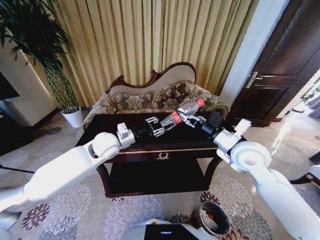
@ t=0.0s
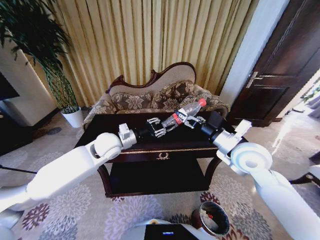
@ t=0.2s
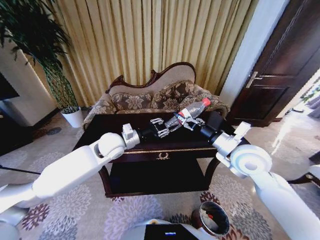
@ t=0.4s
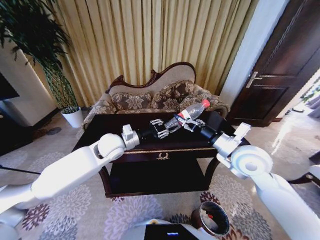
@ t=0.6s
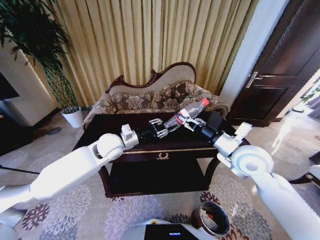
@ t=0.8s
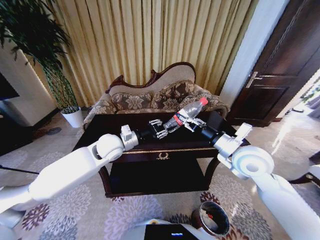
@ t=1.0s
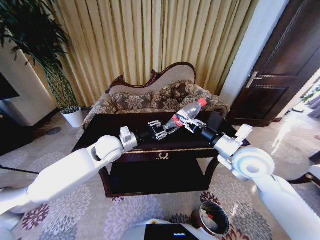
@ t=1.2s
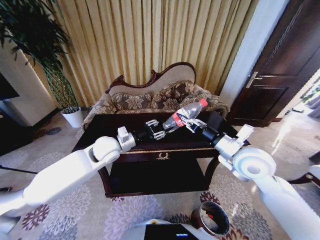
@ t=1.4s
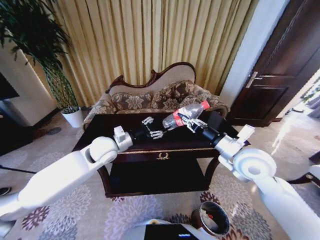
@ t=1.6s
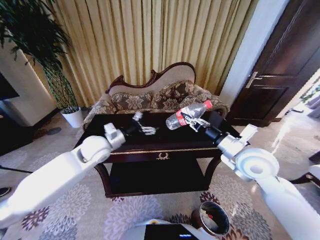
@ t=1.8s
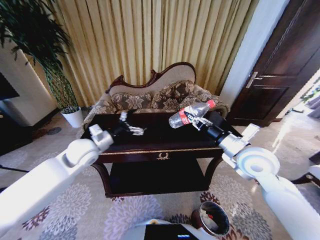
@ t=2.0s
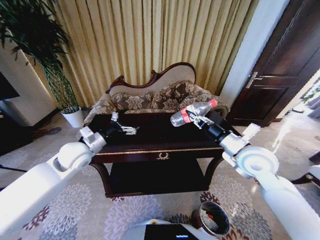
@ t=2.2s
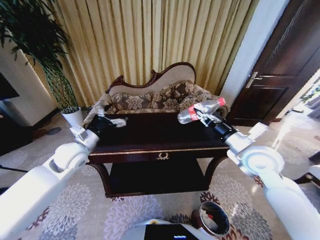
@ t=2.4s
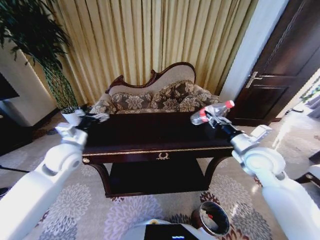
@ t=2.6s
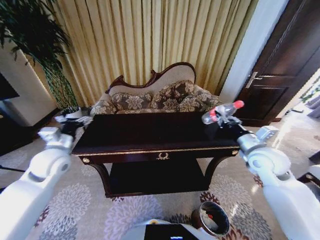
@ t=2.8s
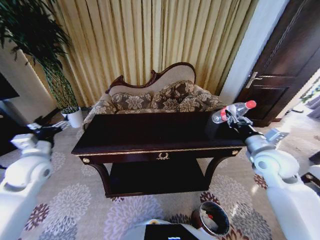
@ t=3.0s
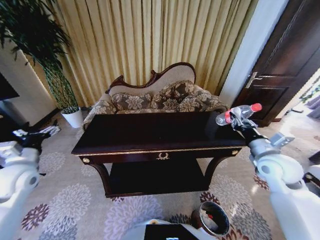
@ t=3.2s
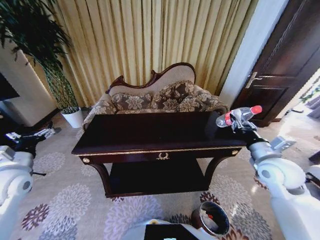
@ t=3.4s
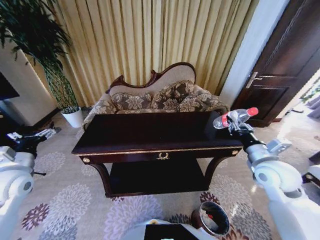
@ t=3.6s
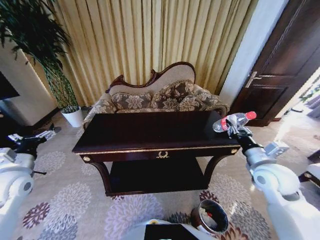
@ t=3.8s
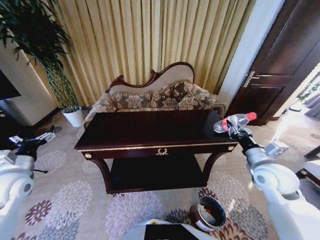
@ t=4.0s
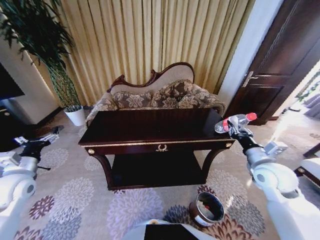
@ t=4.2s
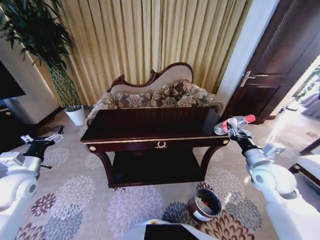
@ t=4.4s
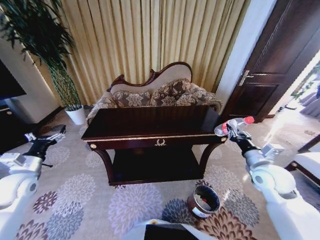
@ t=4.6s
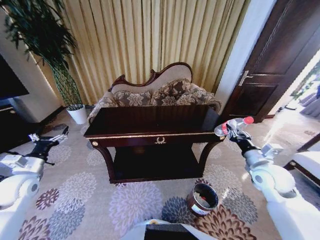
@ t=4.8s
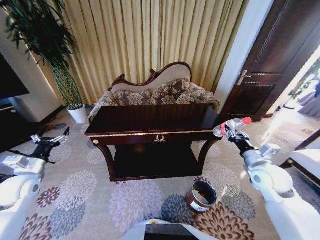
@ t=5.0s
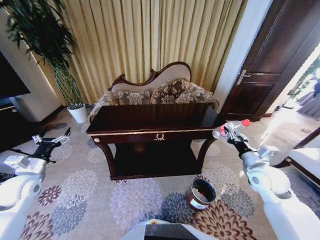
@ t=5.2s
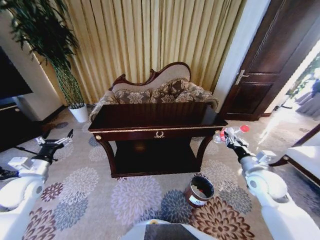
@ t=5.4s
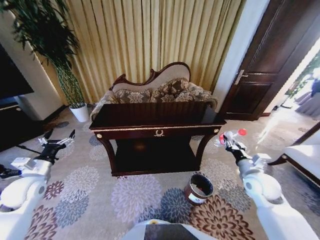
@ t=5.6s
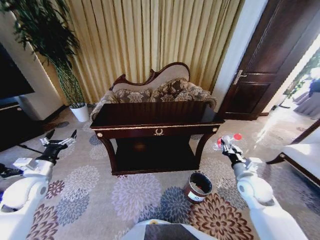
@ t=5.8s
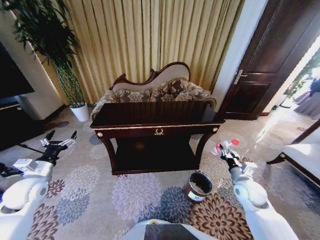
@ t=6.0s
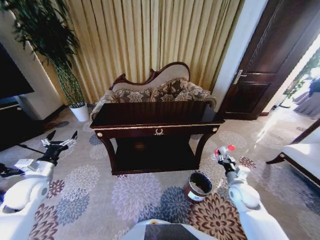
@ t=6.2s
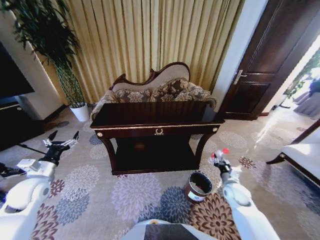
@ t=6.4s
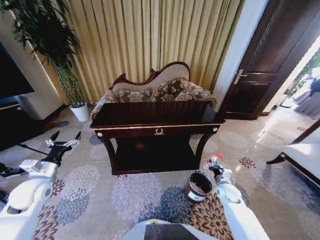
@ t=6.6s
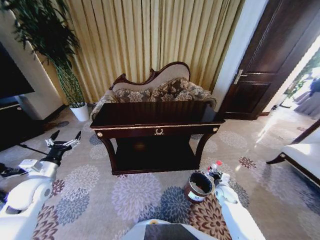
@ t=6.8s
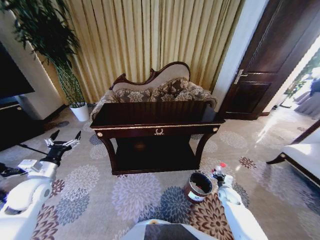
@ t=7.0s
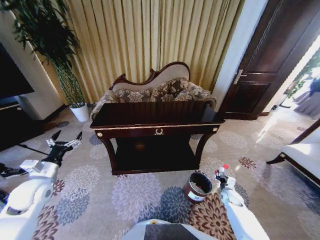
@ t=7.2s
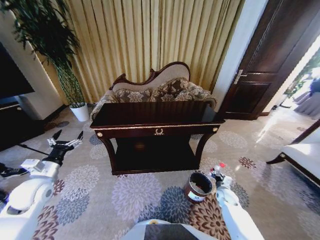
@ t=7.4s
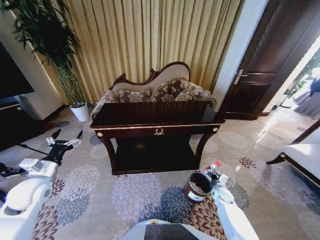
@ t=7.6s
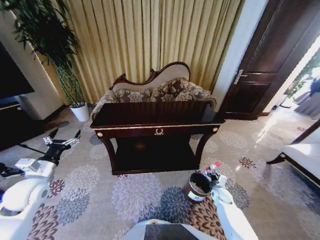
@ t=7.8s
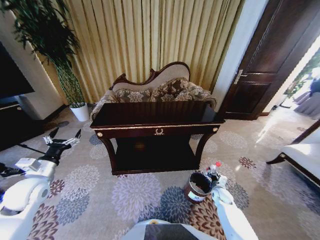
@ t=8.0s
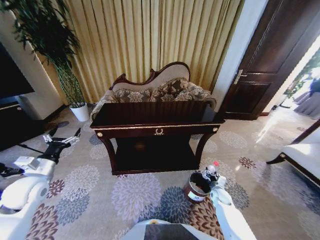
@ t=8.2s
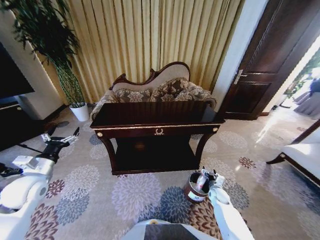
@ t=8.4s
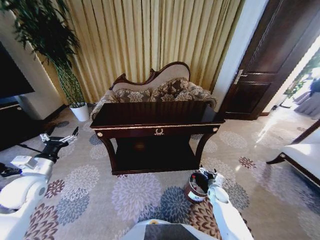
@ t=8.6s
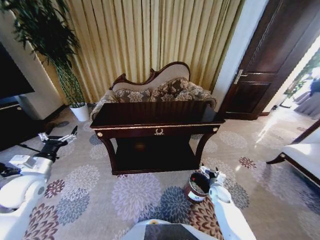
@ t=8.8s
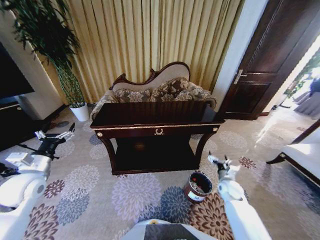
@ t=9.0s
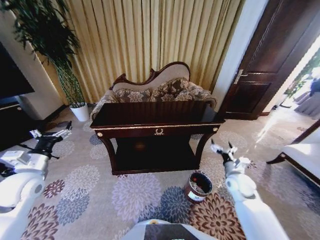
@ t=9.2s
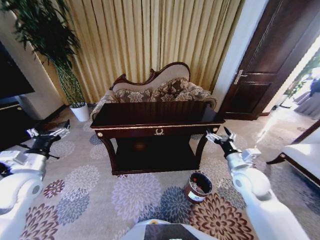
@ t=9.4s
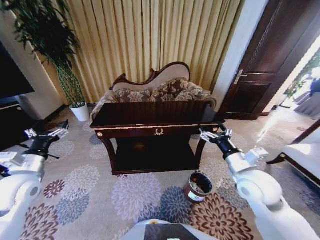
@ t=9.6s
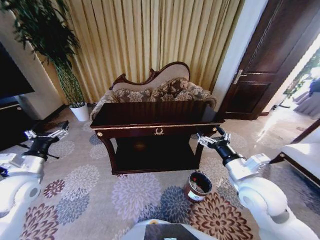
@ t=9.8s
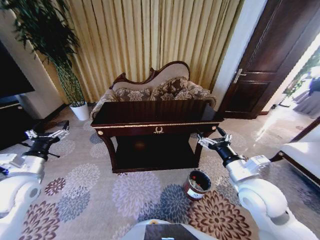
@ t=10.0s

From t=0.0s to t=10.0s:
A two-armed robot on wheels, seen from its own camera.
Task of the whole recording: Move to the front of the table and place the trash on the table into the trash bin.
From t=0.0s to t=1.4s: The right gripper closes its fingers.
From t=1.4s to t=2.8s: The left gripper travels to the left by roughly 20 cm, and opens its fingers. Meanwhile the right gripper moves to the right, roughly 10 cm.
From t=2.8s to t=4.2s: The right gripper shifts by approximately 5 cm; the left gripper shifts roughly 10 cm to the left and backward.
From t=4.2s to t=5.8s: The right gripper moves downward, about 10 cm.
From t=5.8s to t=7.2s: The right gripper travels downward by some 25 cm.
From t=7.2s to t=8.6s: The right gripper heads to the left, covering roughly 5 cm, and opens up.
From t=8.6s to t=10.0s: The right gripper shifts approximately 35 cm upward.

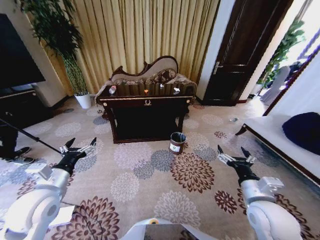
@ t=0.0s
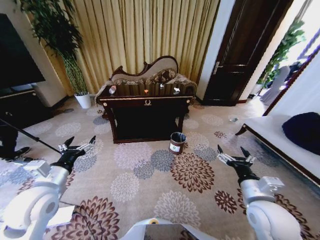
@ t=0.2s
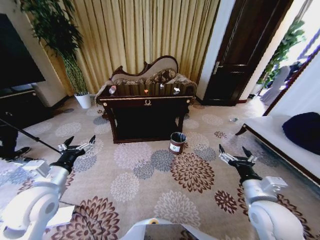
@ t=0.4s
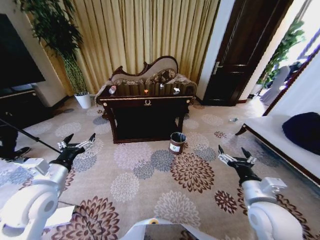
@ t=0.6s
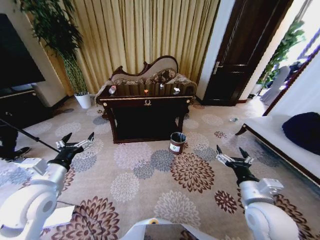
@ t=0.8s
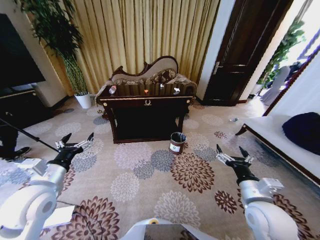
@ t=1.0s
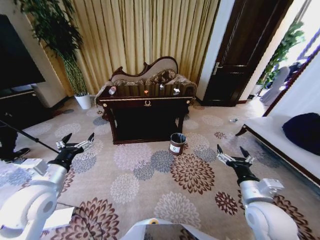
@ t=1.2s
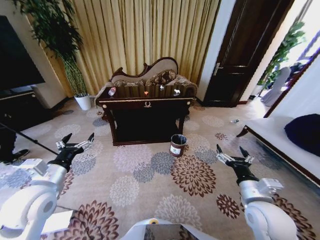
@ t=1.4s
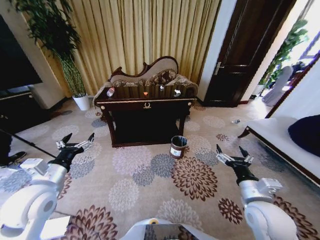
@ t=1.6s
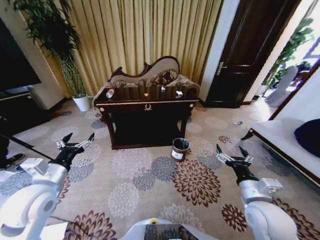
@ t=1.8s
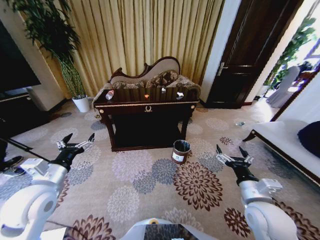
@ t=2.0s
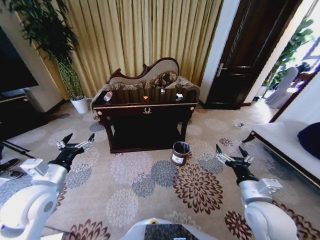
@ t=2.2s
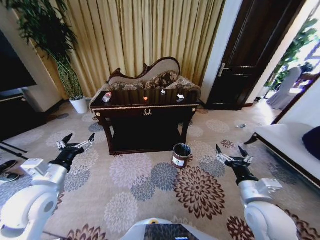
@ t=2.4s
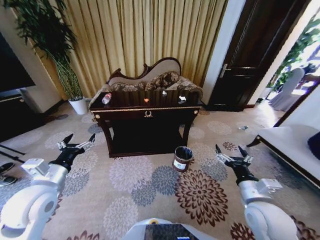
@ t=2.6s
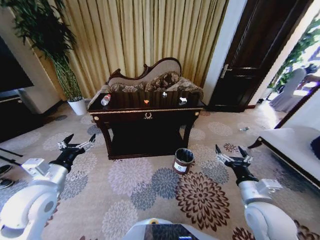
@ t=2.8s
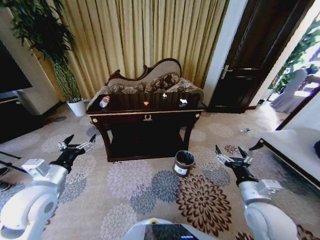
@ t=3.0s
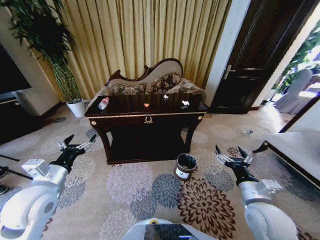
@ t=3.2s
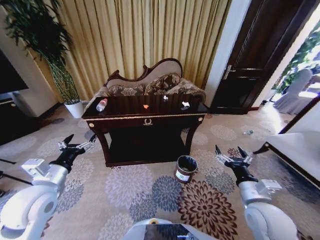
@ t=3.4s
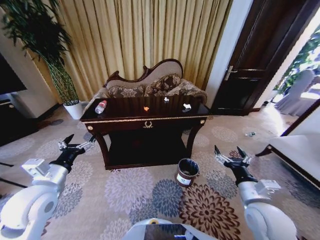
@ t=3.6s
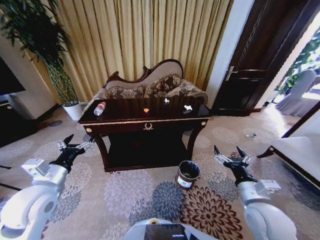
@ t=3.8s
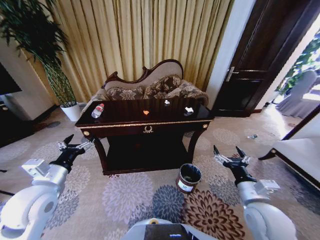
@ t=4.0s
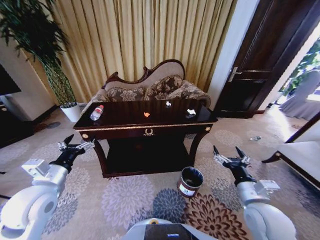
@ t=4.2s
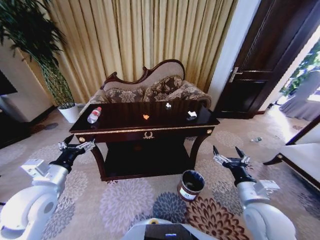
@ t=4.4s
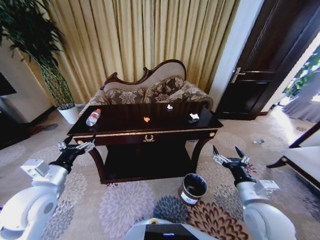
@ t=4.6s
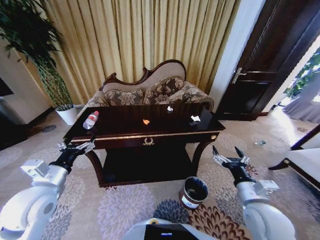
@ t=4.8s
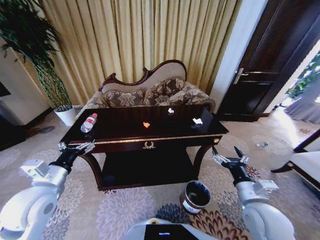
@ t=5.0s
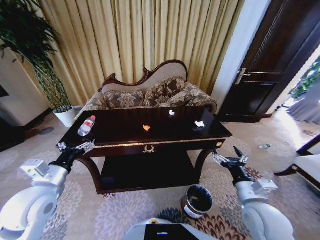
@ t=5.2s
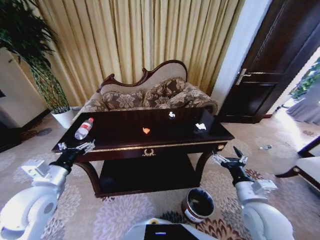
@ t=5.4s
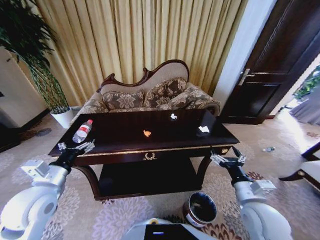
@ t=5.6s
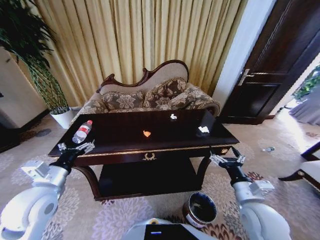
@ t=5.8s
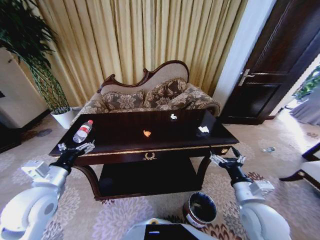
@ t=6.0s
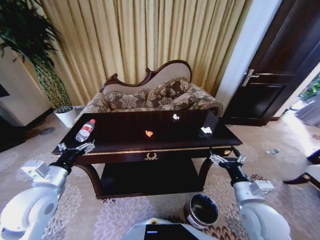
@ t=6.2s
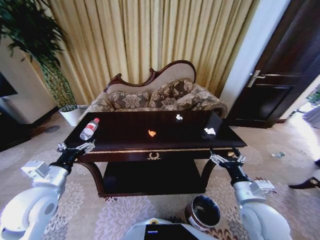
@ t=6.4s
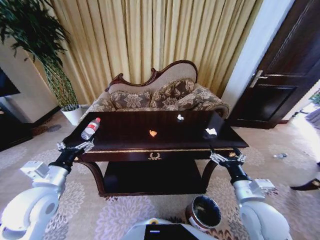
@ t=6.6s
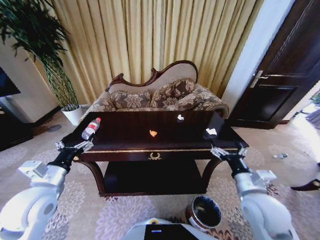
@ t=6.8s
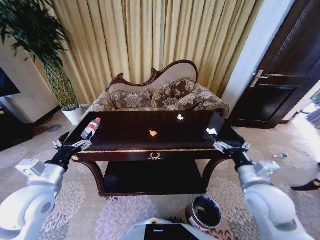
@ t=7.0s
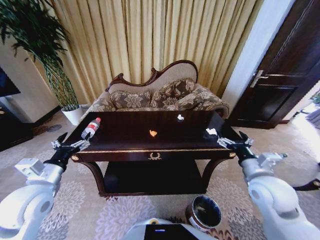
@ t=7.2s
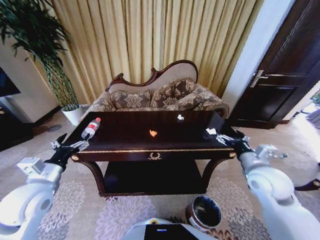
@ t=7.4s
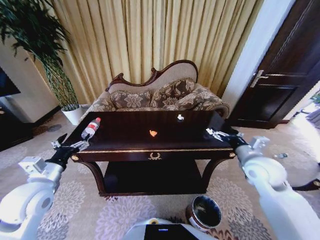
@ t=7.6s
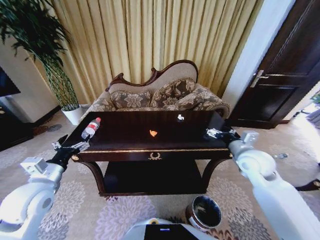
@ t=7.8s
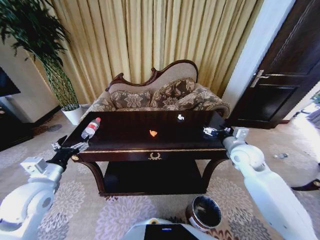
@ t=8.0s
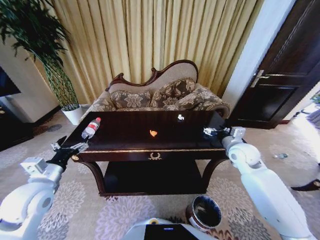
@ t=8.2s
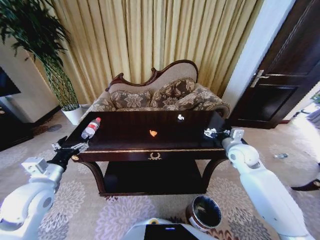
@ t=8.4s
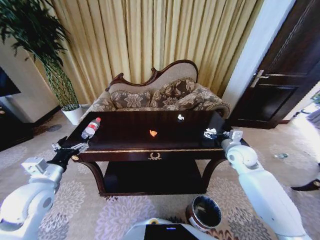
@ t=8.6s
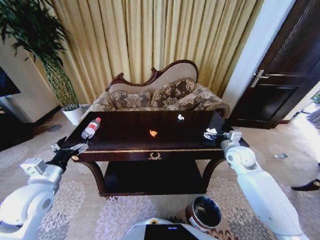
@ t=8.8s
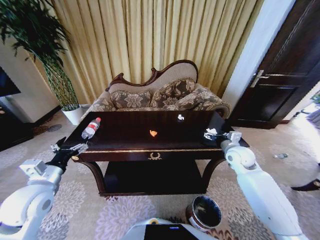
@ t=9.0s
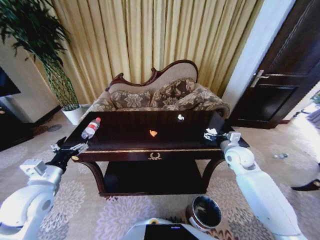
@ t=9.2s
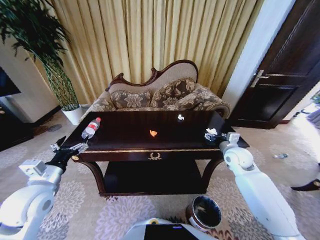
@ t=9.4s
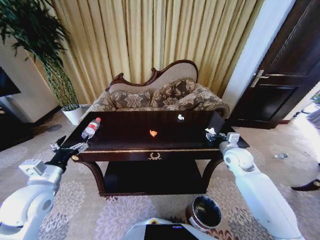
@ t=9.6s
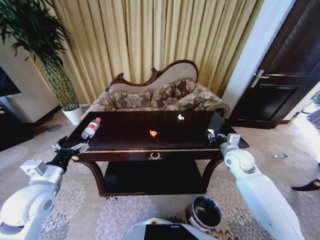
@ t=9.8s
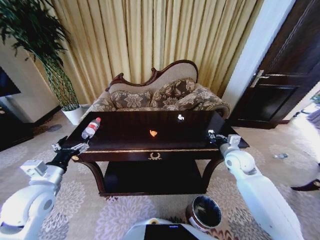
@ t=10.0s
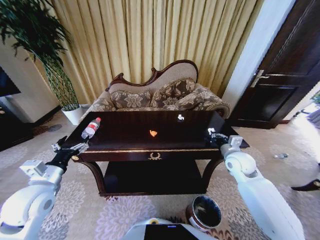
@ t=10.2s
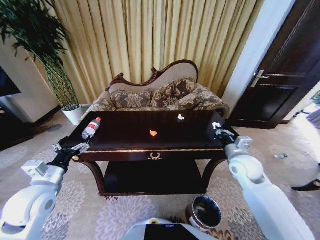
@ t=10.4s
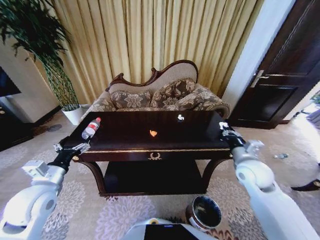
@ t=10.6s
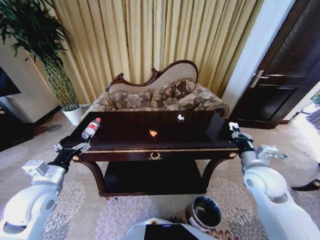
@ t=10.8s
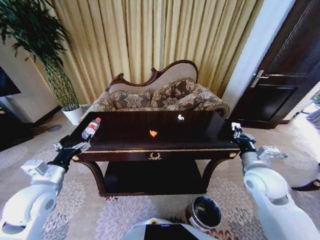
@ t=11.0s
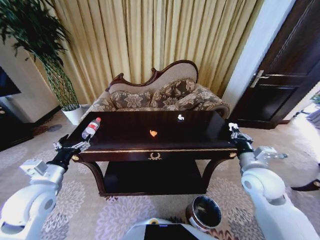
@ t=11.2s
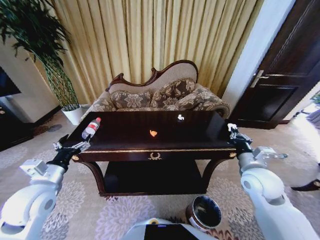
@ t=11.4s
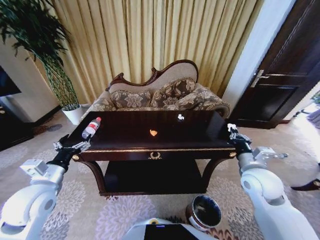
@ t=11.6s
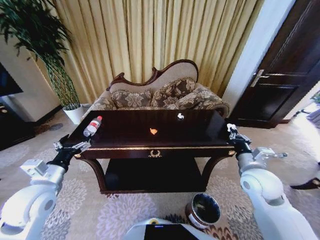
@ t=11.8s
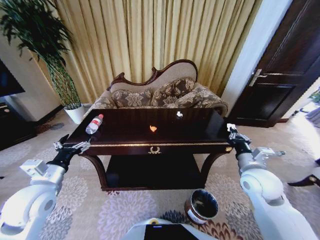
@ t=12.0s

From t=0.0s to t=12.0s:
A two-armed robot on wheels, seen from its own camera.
Task of the whole recording: Move to the front of the table and place the trash on the table into the trash bin.
From t=6.0s to t=7.6s: The right gripper travels forward, upward and to the right by some 15 cm.
From t=7.6s to t=9.0s: The right gripper is displaced forward and downward by about 10 cm.
From t=9.0s to t=10.4s: The right gripper shifts about 5 cm backward, and closes.
From t=10.4s to t=12.0s: The right gripper heads backward, covering some 5 cm.
